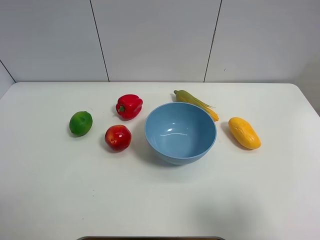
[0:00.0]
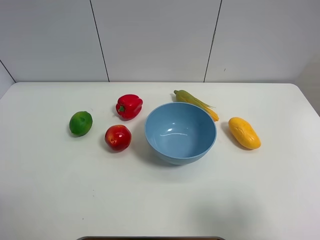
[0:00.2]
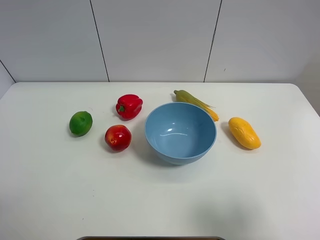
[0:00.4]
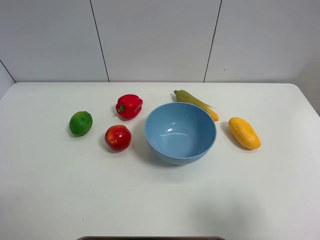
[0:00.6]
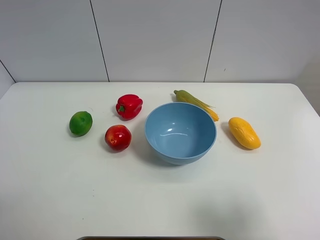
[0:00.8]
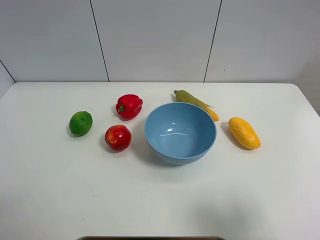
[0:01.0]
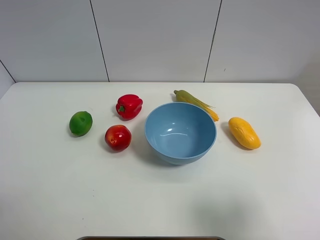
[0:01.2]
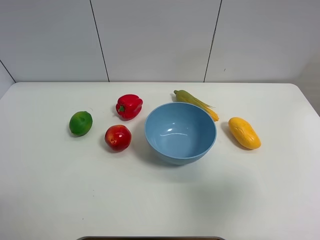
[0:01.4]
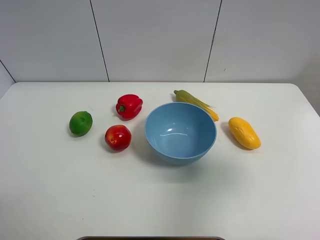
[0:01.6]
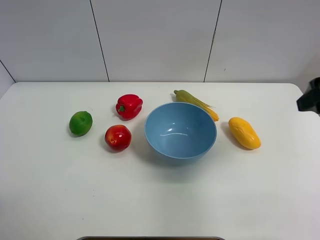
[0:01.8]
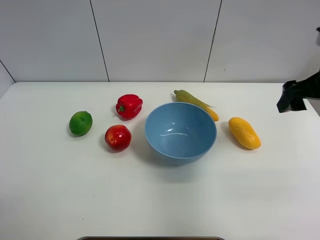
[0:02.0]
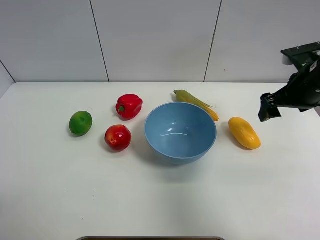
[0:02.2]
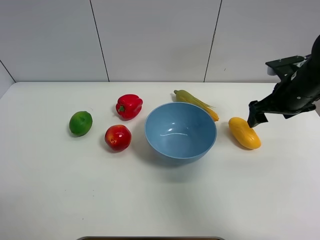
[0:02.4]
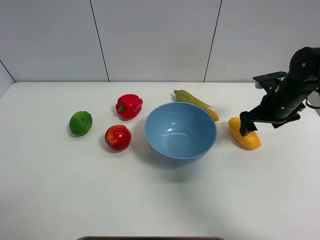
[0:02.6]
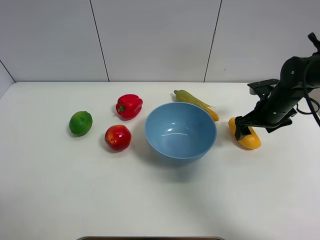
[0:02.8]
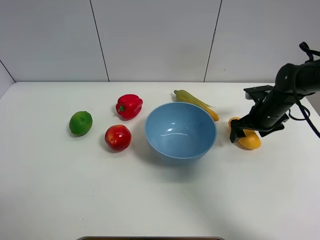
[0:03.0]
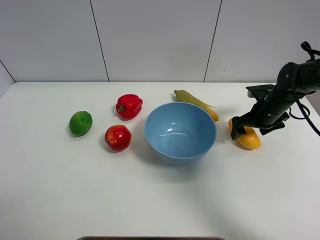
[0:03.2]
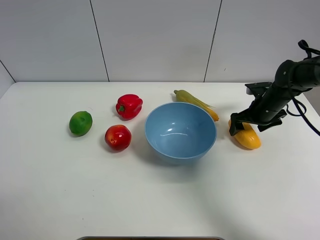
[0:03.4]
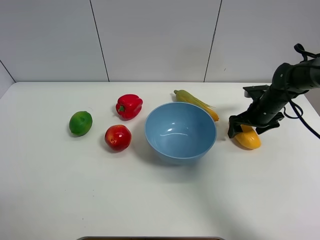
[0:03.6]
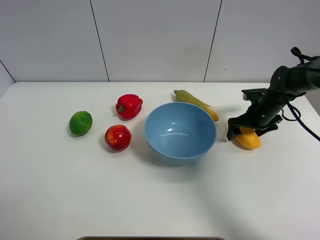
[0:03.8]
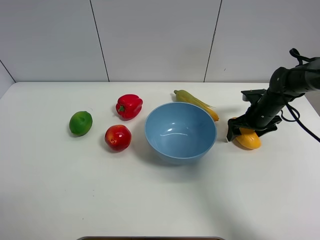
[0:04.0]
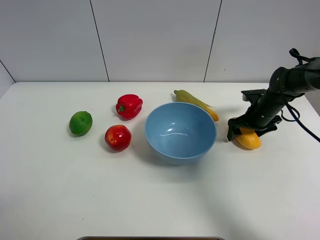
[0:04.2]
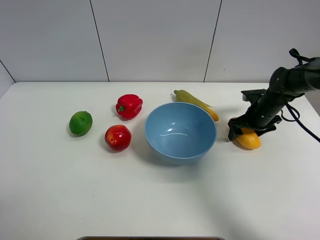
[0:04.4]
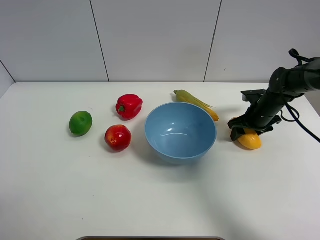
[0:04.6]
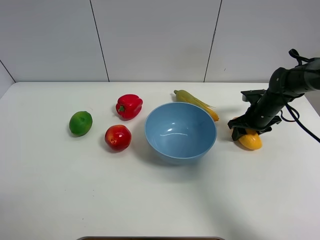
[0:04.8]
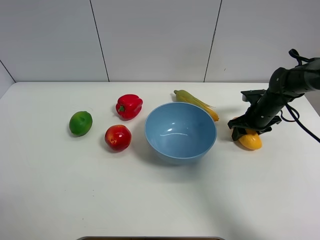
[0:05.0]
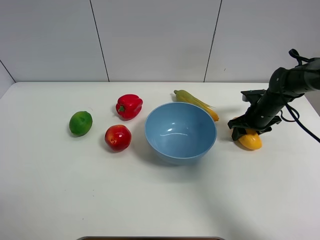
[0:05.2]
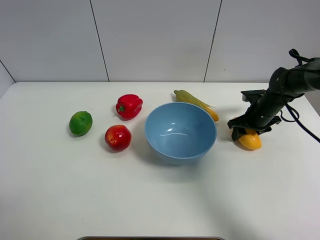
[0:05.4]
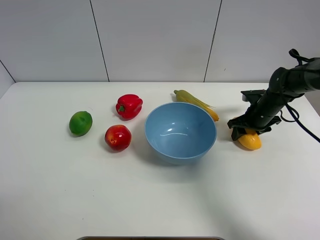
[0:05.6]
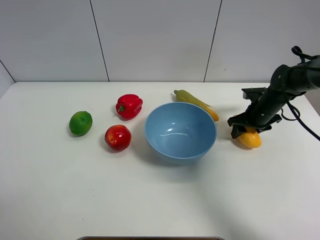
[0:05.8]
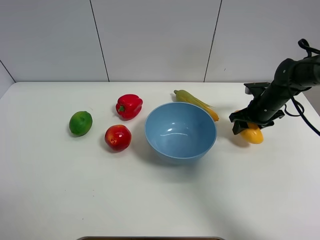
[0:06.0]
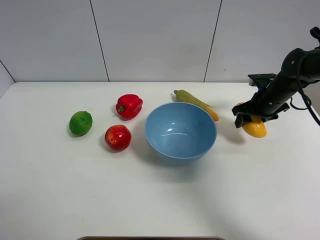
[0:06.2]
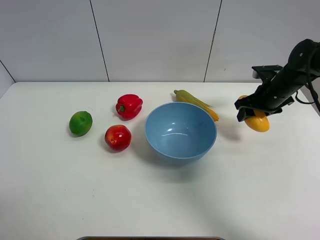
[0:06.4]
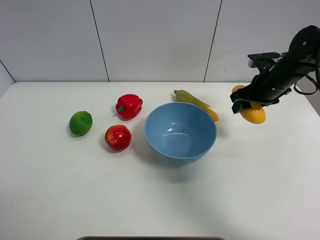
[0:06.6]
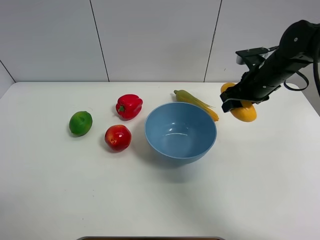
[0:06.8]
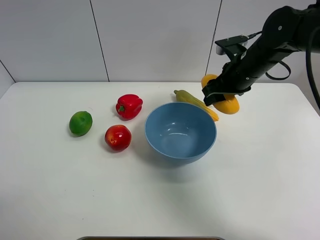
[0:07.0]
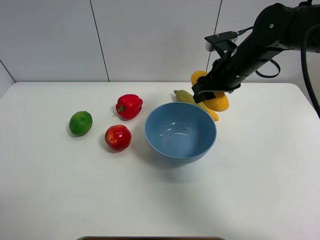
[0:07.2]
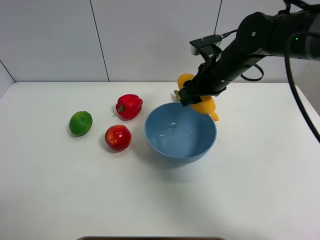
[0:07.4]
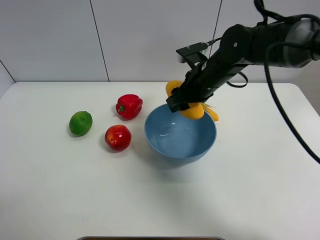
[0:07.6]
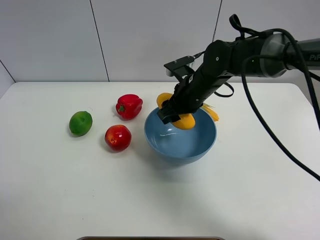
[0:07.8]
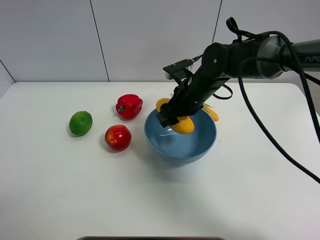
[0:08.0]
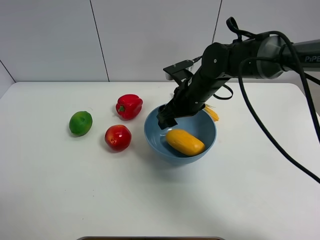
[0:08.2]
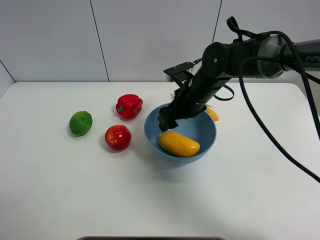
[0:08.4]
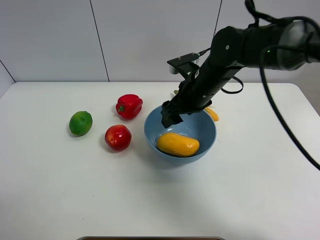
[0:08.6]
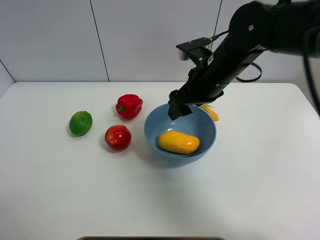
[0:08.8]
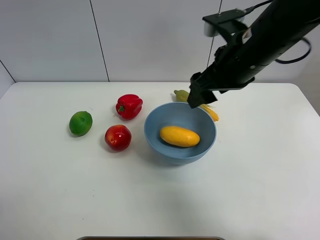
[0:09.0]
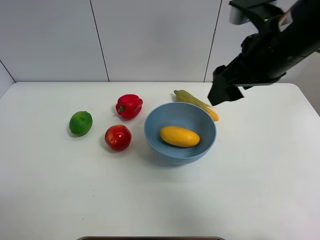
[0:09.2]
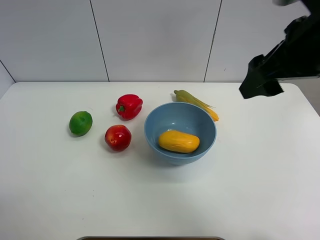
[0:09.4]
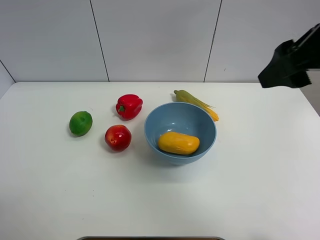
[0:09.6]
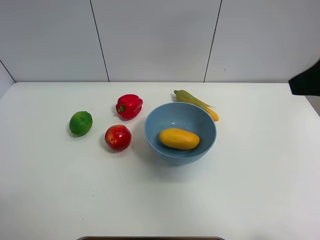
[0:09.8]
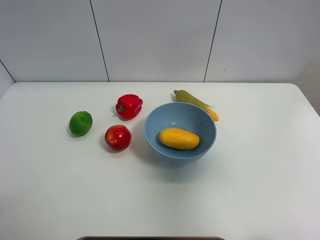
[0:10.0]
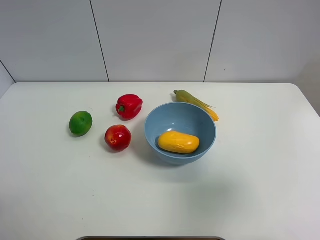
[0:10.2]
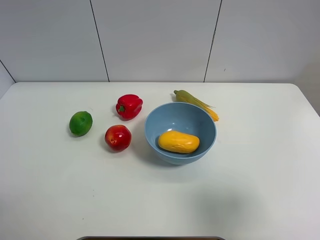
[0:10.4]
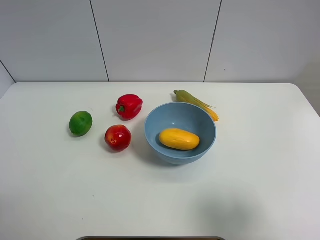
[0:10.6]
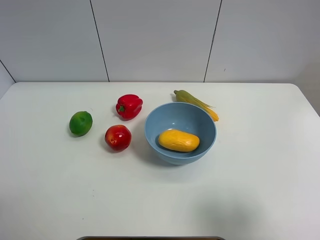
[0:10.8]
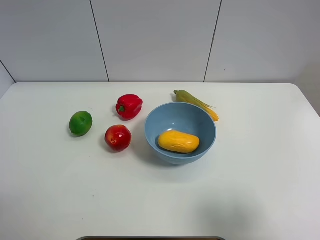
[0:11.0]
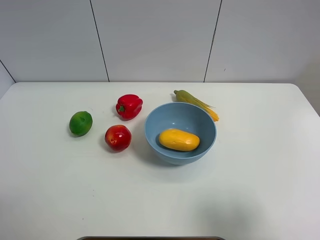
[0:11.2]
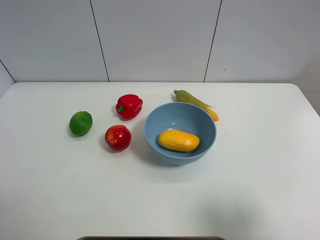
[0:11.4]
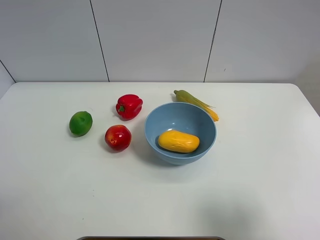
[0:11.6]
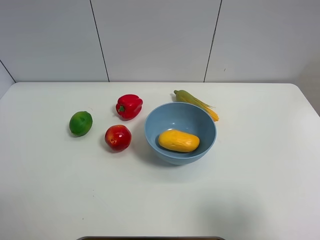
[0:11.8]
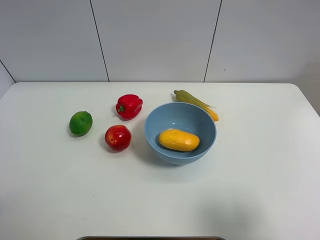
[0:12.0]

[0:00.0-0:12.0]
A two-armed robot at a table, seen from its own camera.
Task of the whole recording: Put the three fruits on the table into a bowl.
Step, 0:00.0 to 0:04.8: Grasp the mango with right gripper.
Step, 0:05.0 to 0:08.4: Place the mango in the blue bowl with right gripper.
0:00.0 to 0:01.6: The right gripper is displaced forward and upward by about 15 cm.
0:01.6 to 0:03.0: The right gripper is displaced forward and downward by about 30 cm.
0:03.0 to 0:04.4: The right gripper closes up.
0:04.4 to 0:06.0: The right gripper closes up.
0:06.0 to 0:07.6: The right gripper heads to the left and upward, covering roughly 20 cm.
0:07.6 to 0:09.0: The right gripper travels upward and backward by approximately 15 cm, and opens its fingers.
0:09.0 to 0:10.4: The right gripper goes about 30 cm backward and to the right.
0:10.4 to 0:12.0: The grippers move only a little.

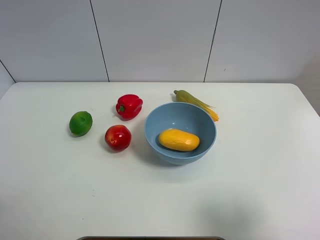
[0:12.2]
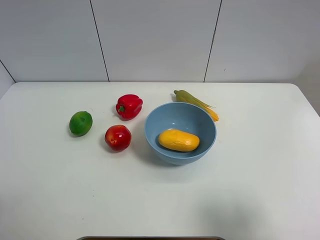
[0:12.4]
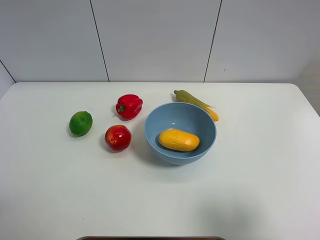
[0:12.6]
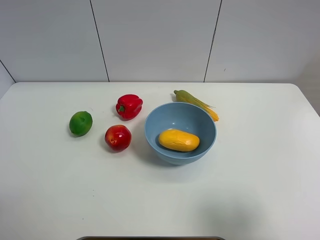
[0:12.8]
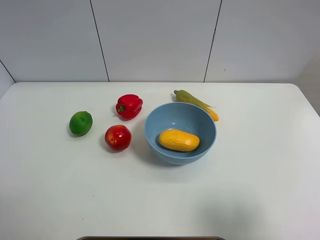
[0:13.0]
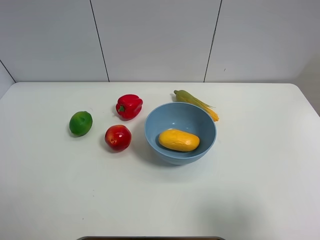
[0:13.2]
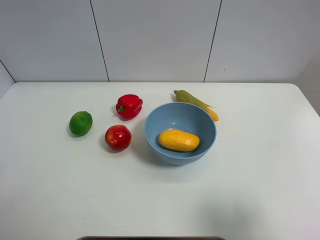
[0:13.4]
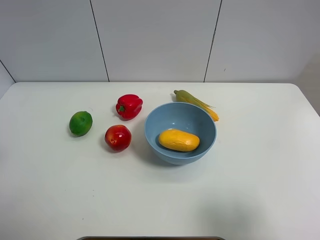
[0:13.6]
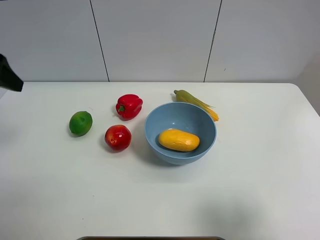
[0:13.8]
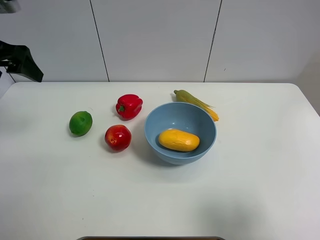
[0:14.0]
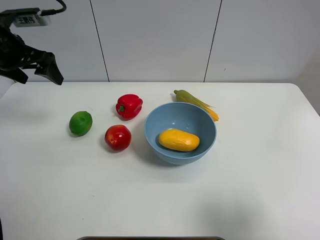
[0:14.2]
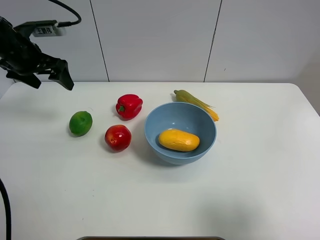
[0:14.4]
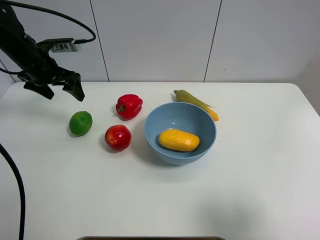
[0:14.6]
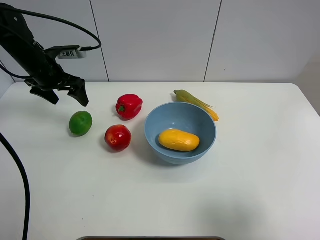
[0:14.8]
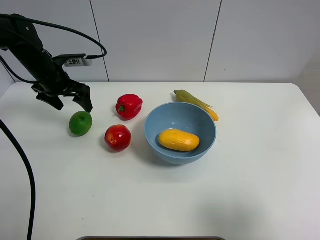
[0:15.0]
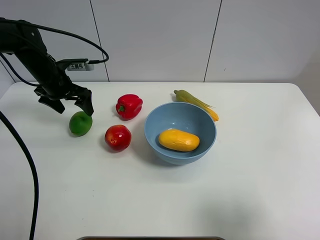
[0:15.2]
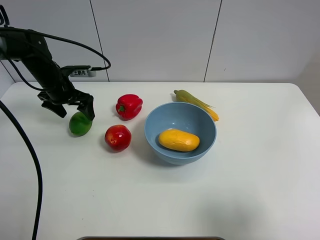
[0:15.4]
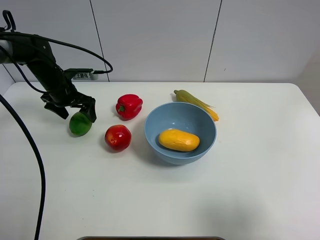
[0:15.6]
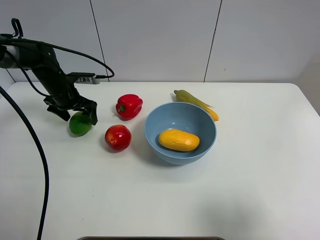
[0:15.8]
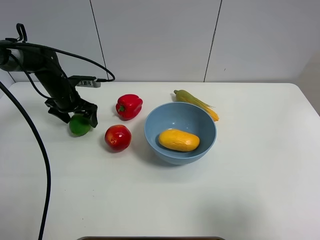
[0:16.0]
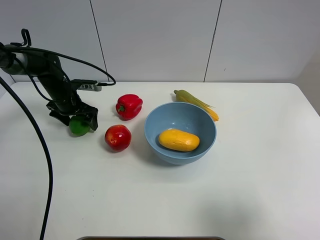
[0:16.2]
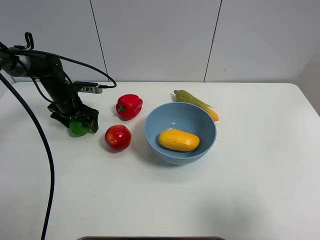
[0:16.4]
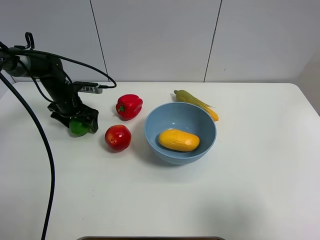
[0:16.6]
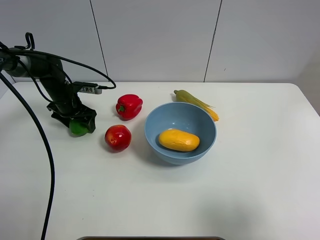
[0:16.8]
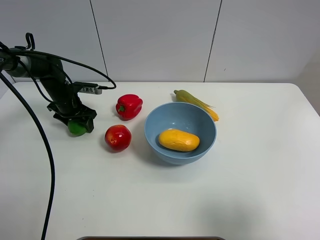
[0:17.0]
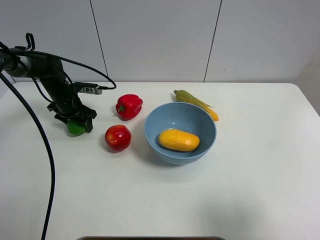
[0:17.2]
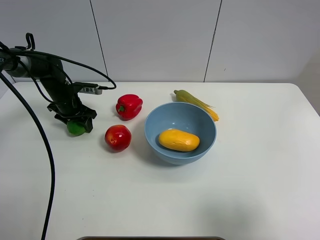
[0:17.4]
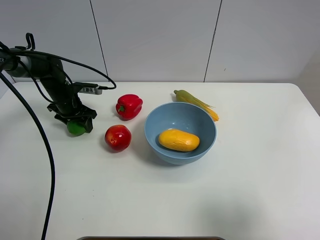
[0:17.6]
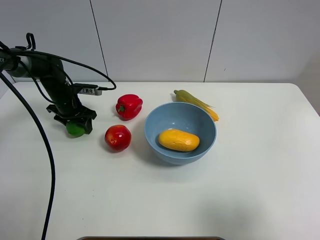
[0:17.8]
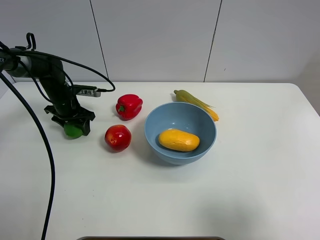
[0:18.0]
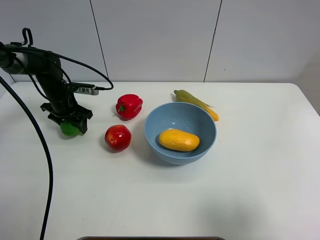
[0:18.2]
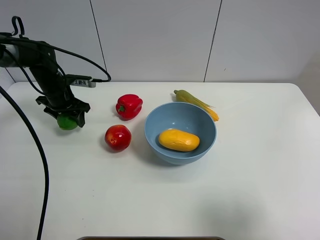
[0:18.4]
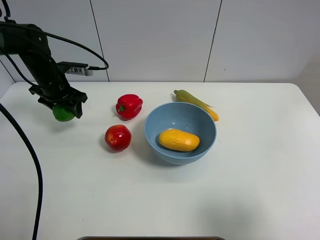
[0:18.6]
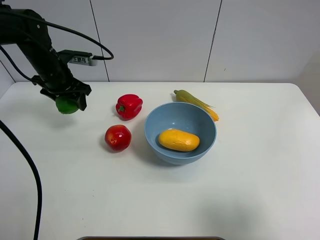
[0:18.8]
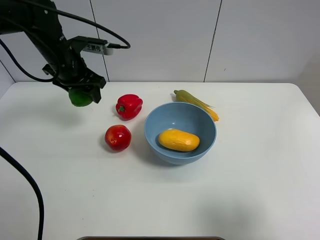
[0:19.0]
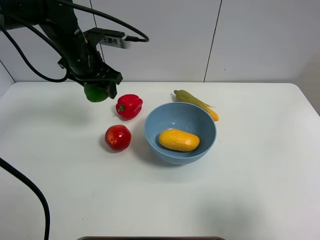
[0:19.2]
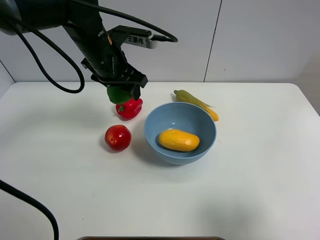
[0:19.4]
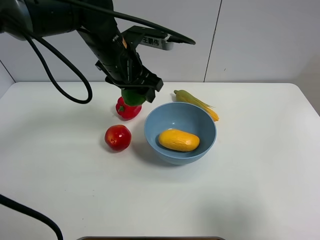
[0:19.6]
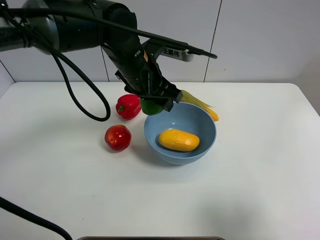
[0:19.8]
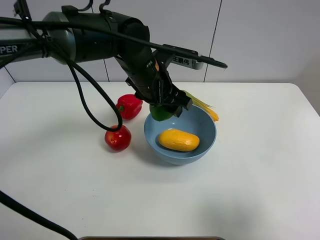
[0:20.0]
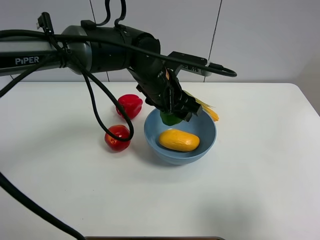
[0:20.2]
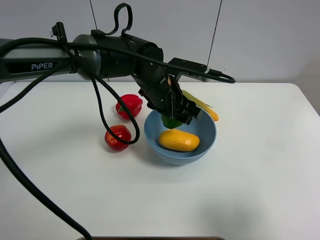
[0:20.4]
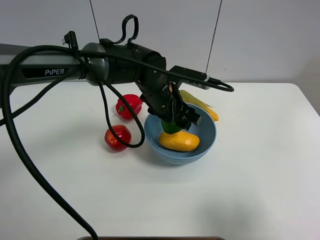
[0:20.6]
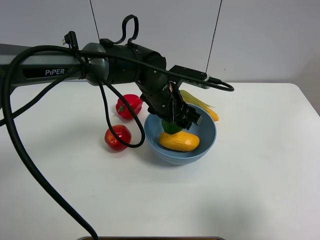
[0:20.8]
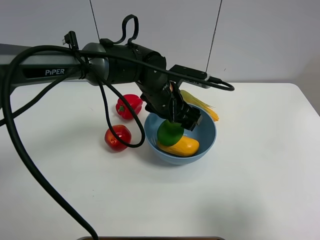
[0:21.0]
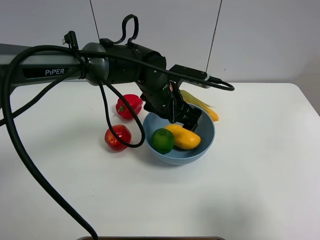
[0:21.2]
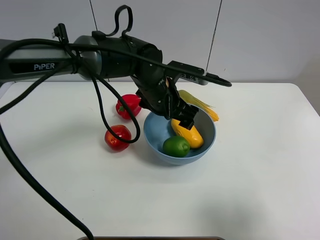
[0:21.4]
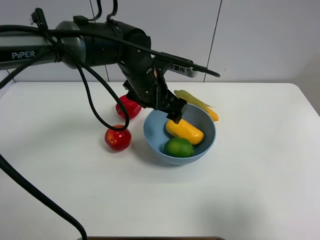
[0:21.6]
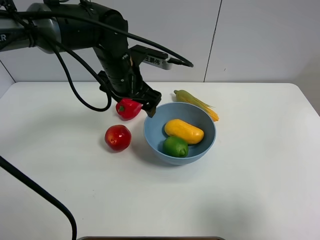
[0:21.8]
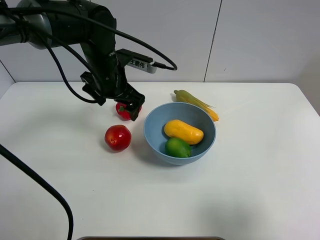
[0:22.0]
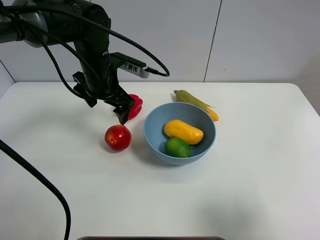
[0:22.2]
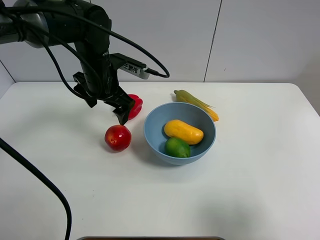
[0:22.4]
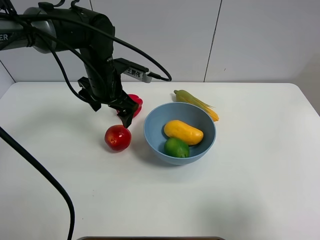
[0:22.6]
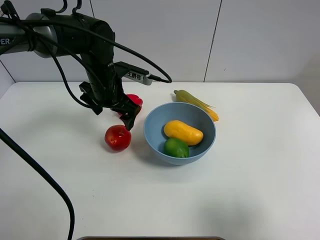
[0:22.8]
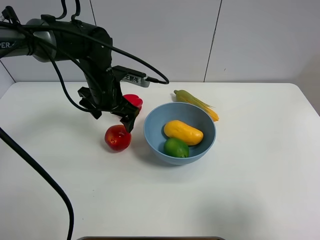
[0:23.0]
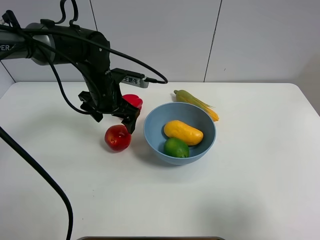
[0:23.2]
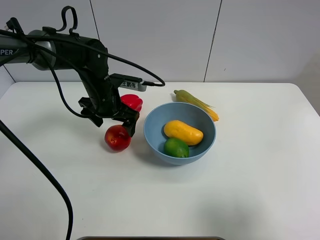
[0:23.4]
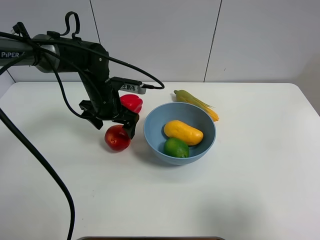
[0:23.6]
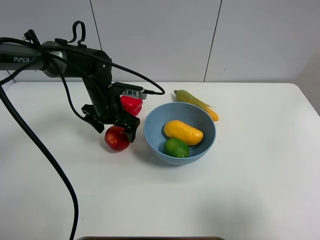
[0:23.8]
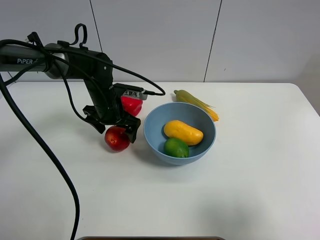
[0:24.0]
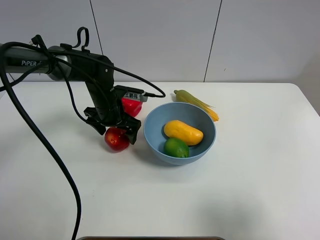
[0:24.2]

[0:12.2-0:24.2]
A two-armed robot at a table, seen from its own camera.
Task of the whole recording: Put the three fruits on the table into a bowl.
Step, 0:12.2 to 0:17.2: Grasp the green lemon with left gripper.
Step, 0:17.4 to 0:21.2: Place the green lemon in the blue bowl with left gripper.
0:12.2 to 0:13.8: The left gripper moves forward, about 25 cm.
0:13.8 to 0:15.2: The left gripper heads downward and forward, covering about 25 cm.
0:15.2 to 0:16.6: The left gripper goes some 10 cm downward.
0:16.6 to 0:18.2: The left gripper closes up.
0:18.2 to 0:19.8: The left gripper goes some 30 cm to the right, upward and backward.
0:19.8 to 0:21.2: The left gripper shifts about 5 cm downward, and opens.
0:21.2 to 0:22.6: The left gripper moves to the left, approximately 10 cm.
0:22.6 to 0:24.2: The left gripper goes approximately 10 cm downward.
